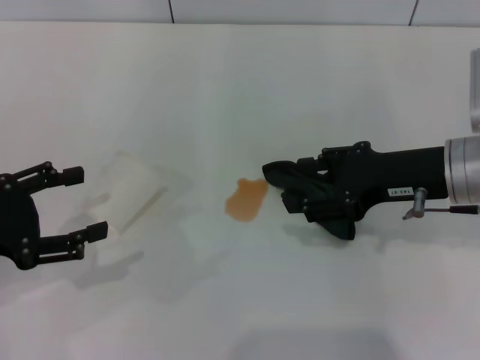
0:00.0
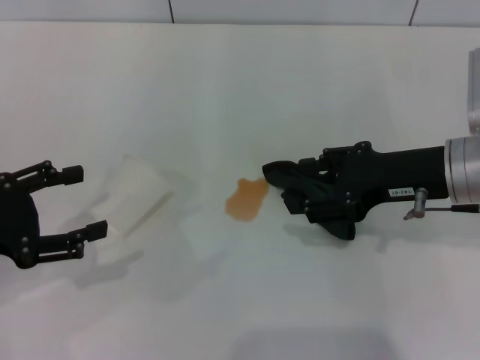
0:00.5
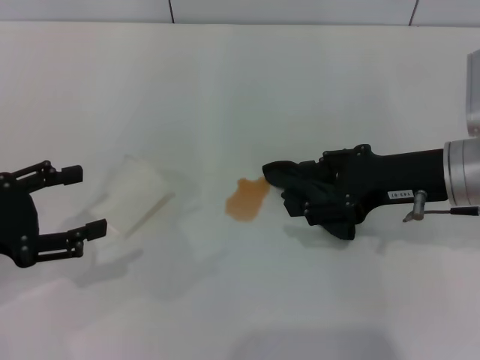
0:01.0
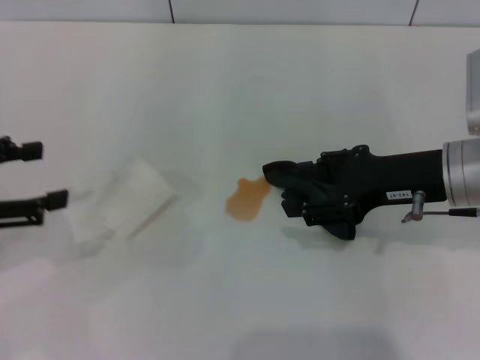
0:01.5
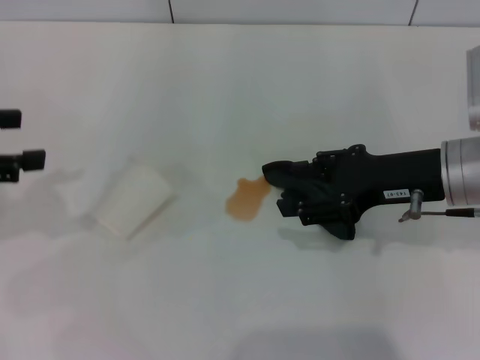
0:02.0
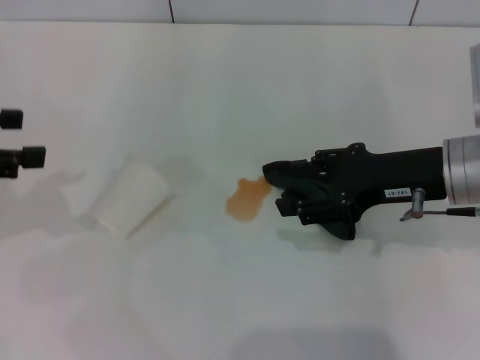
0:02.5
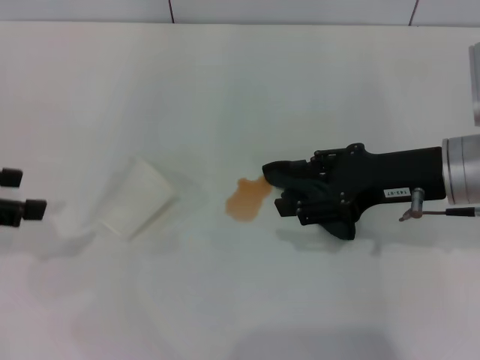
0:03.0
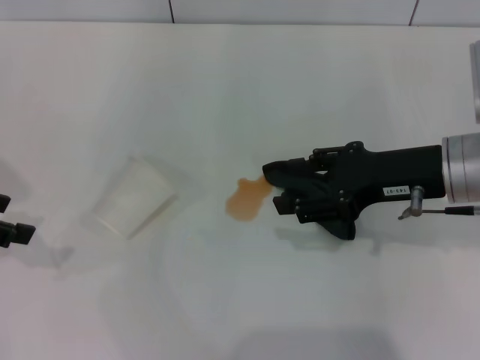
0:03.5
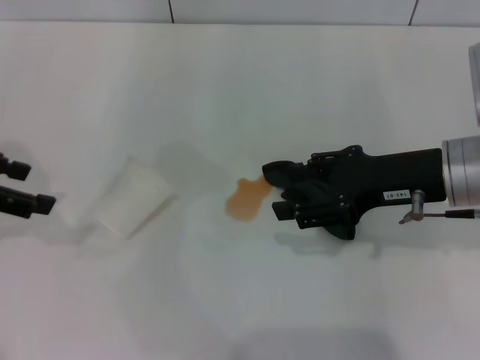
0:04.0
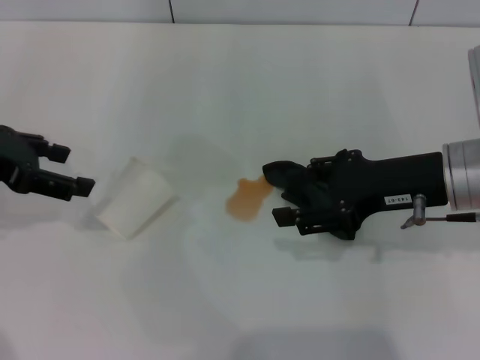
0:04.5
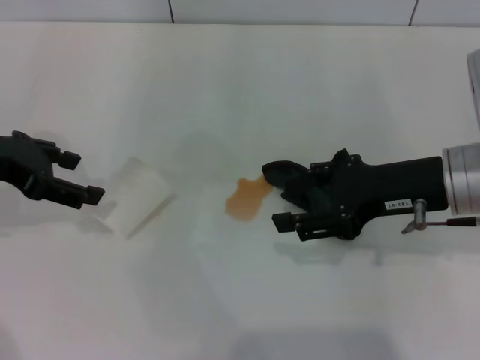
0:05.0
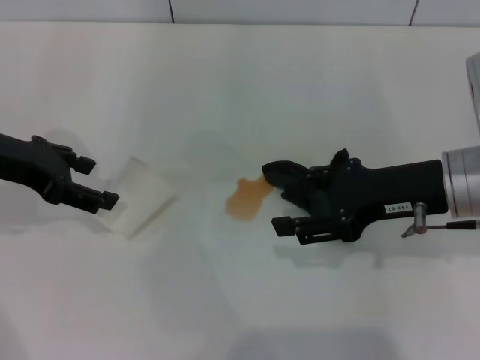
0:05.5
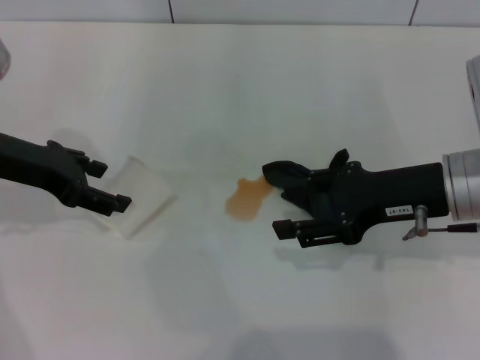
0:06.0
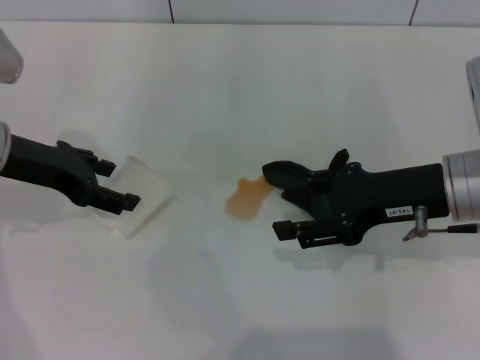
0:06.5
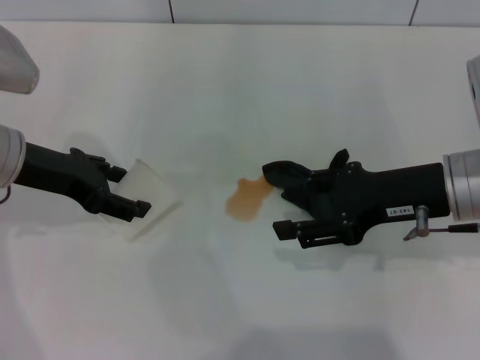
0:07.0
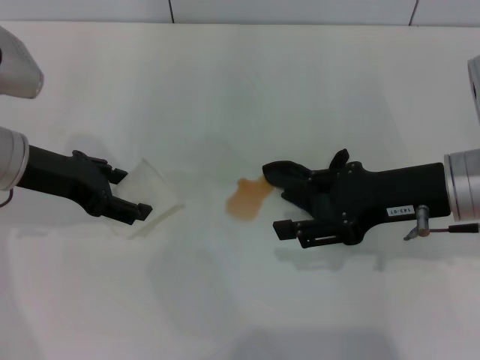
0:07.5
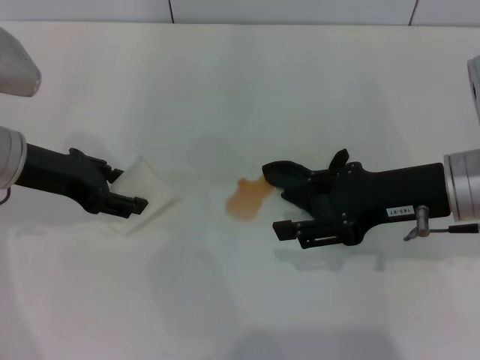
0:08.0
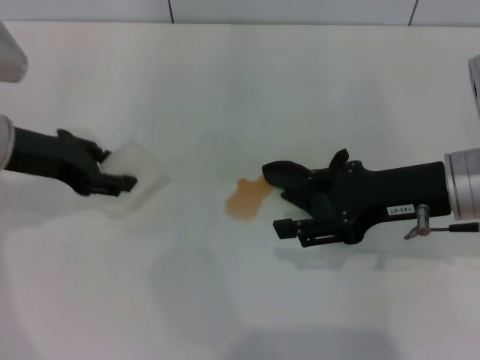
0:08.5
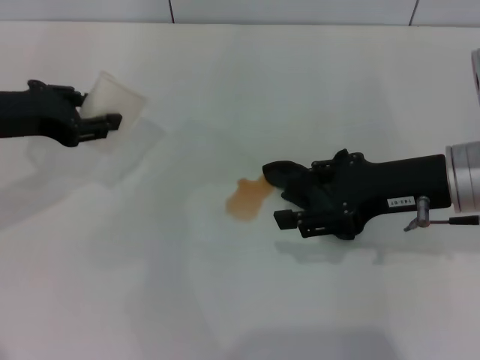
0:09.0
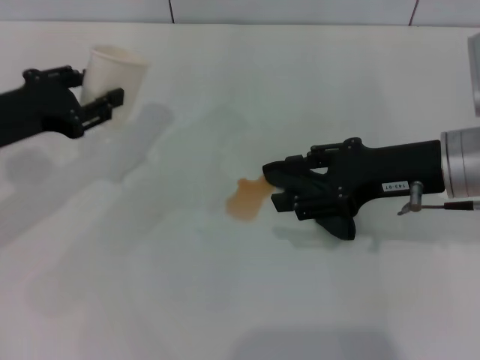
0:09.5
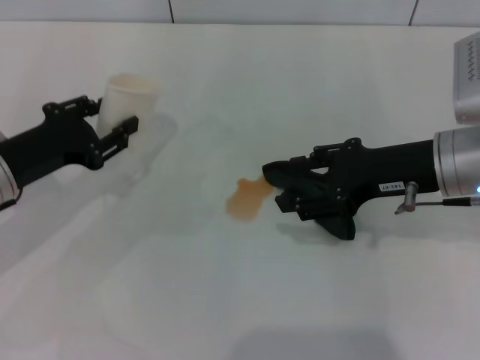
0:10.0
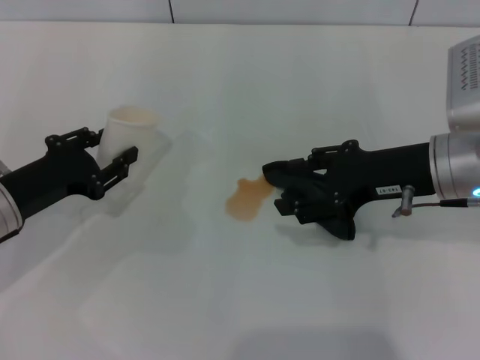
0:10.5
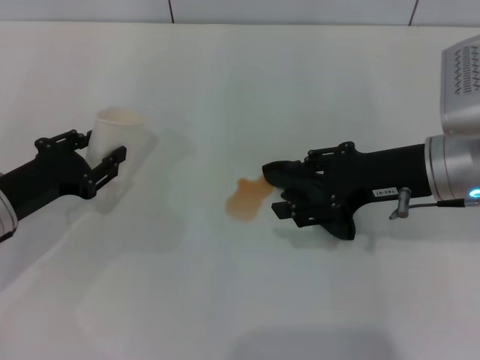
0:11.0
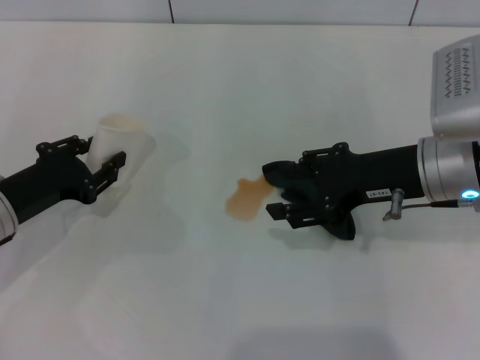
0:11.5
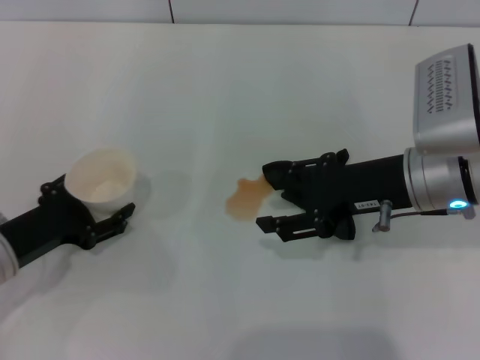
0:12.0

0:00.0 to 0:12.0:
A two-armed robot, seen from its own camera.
Step, 0:00.0 to 0:08.0: Grasp the paper cup with the left gripper.
0:00.0 to 0:02.0: The left gripper goes roughly 10 cm upward.
0:04.0 to 0:06.0: The left gripper travels to the right by some 5 cm.
0:06.0 to 0:08.0: There are only small adjustments of the grippers.
0:08.0 to 0:10.0: The left gripper shifts roughly 5 cm downward, and closes its fingers.
0:10.0 to 0:12.0: The left gripper heads backward, covering roughly 5 cm.

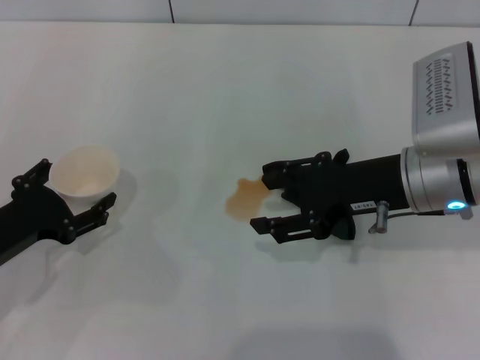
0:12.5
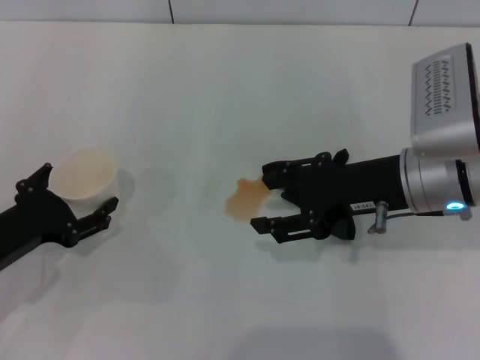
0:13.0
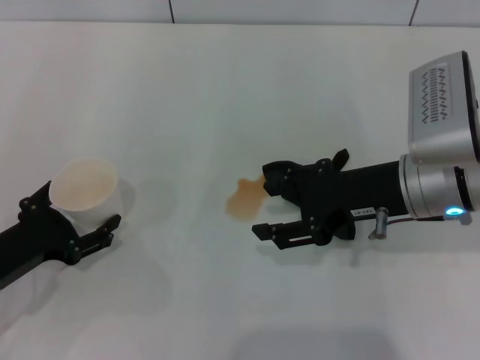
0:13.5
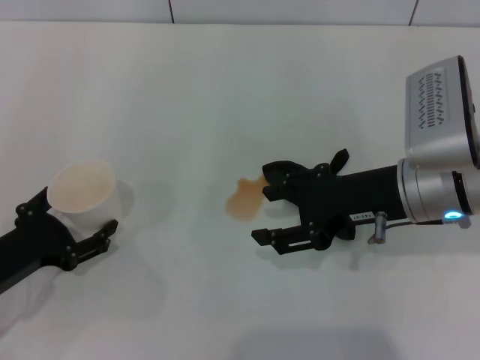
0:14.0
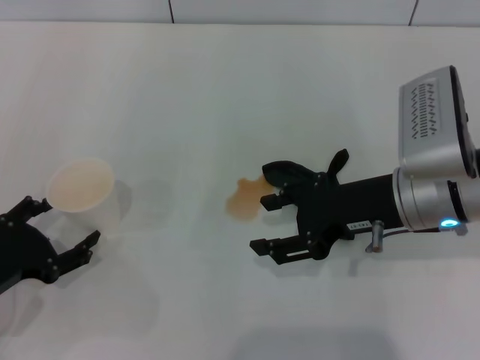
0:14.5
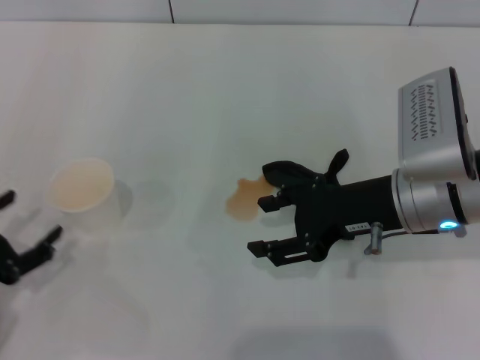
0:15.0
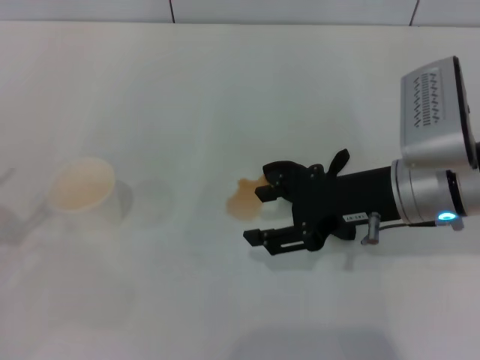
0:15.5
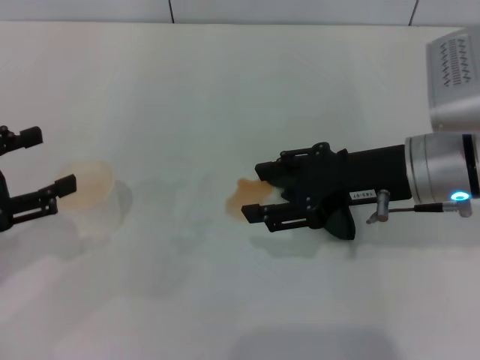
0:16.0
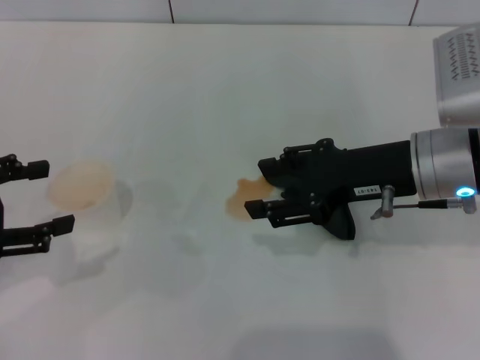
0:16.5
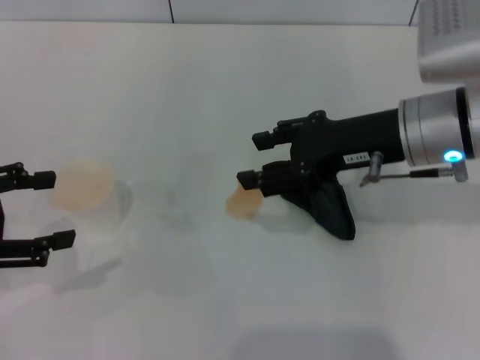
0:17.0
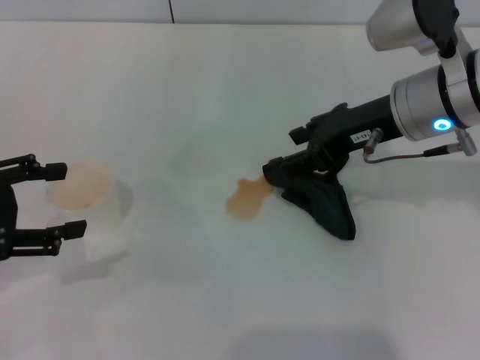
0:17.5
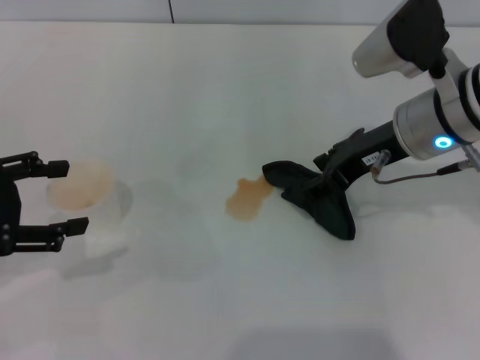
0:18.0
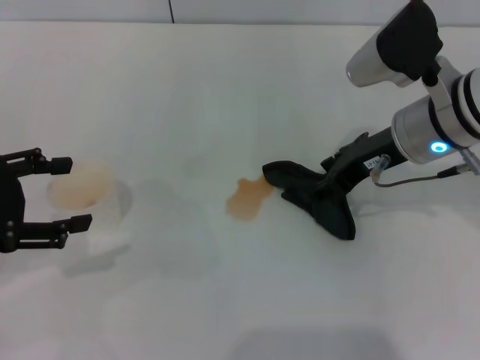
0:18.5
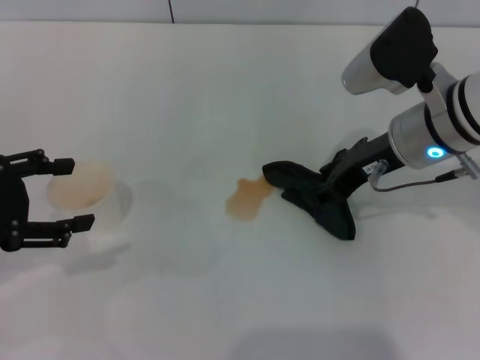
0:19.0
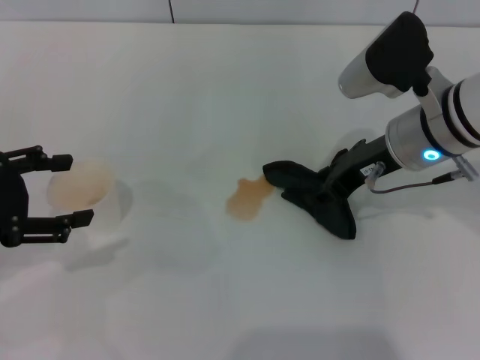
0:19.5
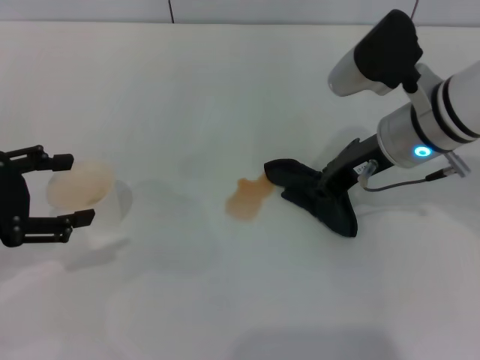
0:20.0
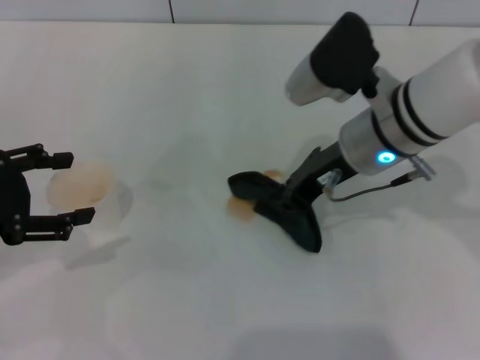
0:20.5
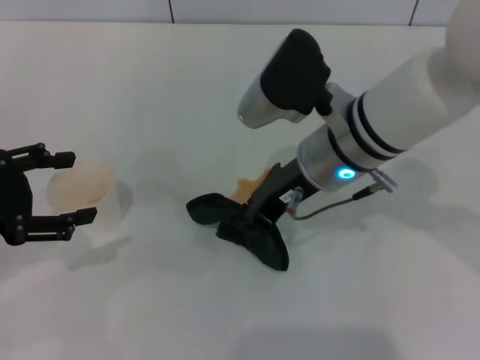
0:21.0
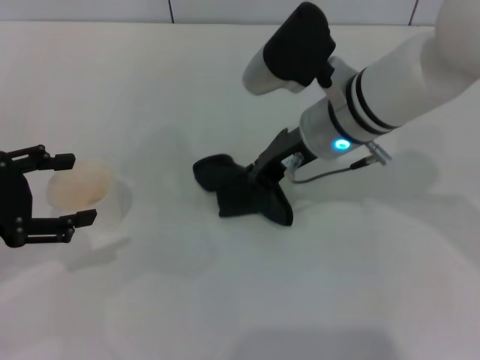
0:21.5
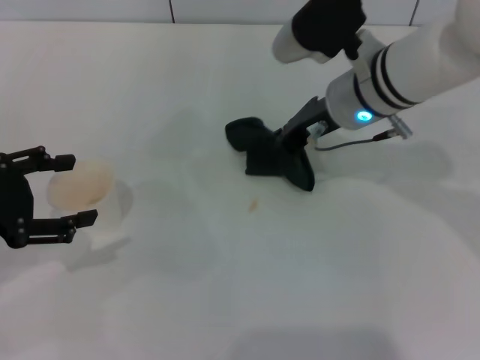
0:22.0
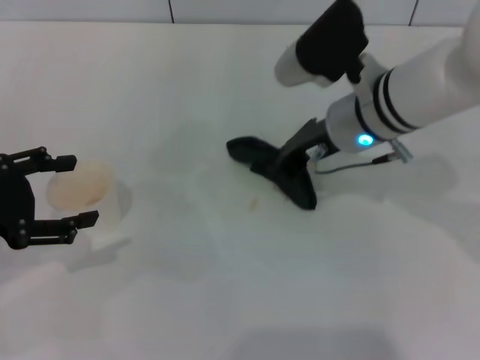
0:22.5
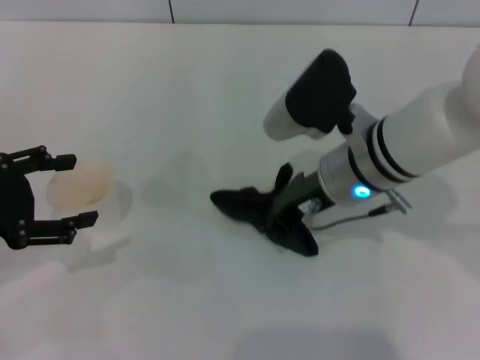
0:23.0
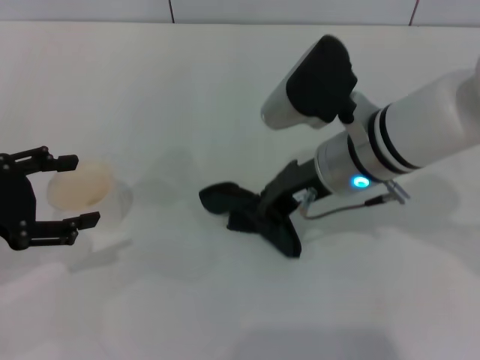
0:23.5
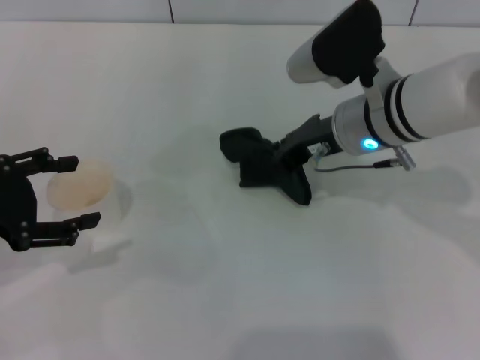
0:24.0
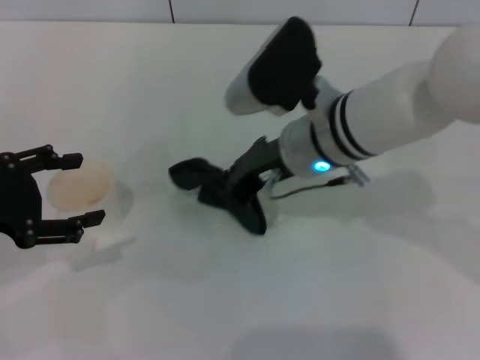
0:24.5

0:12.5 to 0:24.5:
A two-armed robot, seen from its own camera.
Step, 0:12.5 to 0:14.5: Stand the paper cup upright with the left gripper.
Step, 0:15.0 to 0:20.0: Grasp the rag with the right gripper.
0:12.5 to 0:14.5: The grippers move only a little.
0:14.5 to 0:16.5: The left gripper travels upward by roughly 10 cm.
0:16.5 to 0:18.5: The right gripper goes roughly 5 cm forward.
0:18.5 to 0:20.5: The right gripper closes up.
0:20.5 to 0:22.5: There are only small adjustments of the grippers.
0:22.5 to 0:24.5: The right gripper shifts by roughly 5 cm.

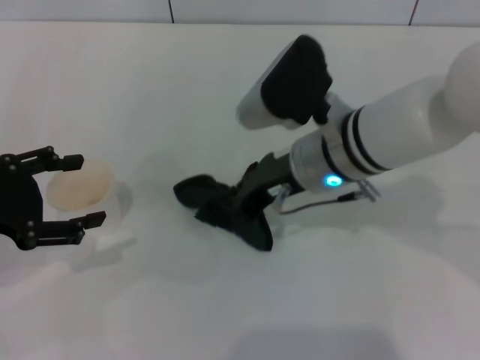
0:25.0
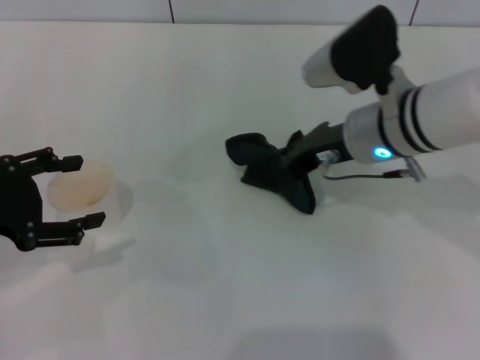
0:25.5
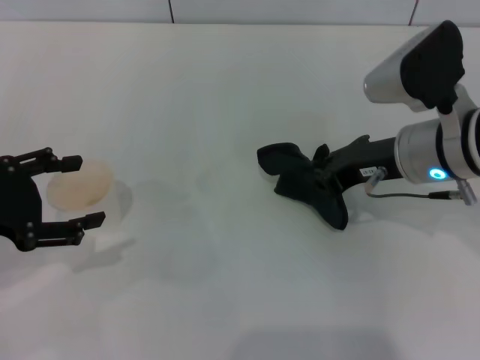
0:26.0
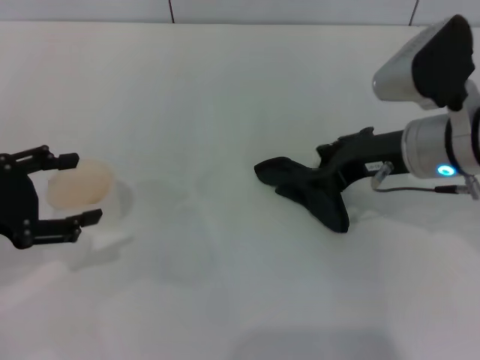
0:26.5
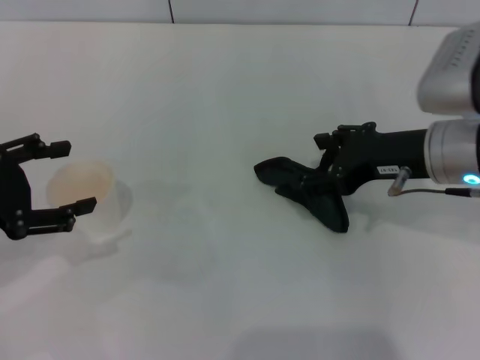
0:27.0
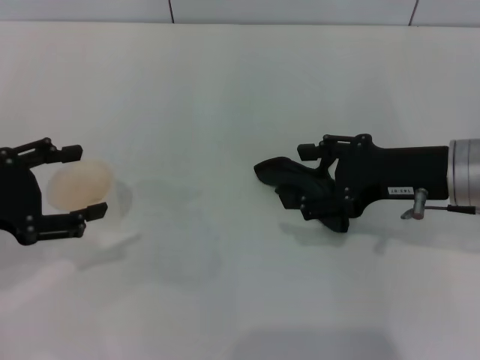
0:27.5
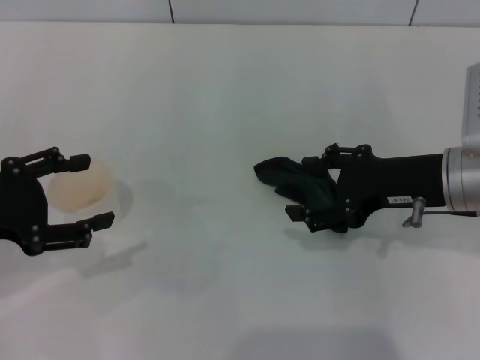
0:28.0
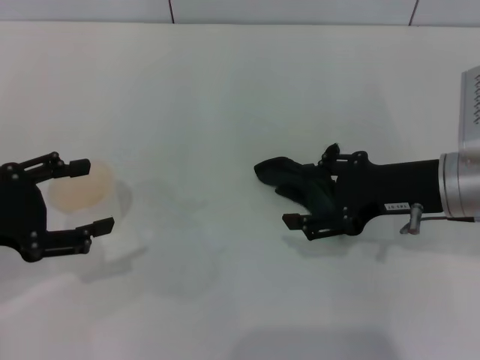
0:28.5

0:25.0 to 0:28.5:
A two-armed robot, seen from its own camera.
Step, 0:26.5 to 0:27.5: Place the rag on the table with the right gripper.
0:25.0 to 0:27.0: The right gripper heads to the right, covering some 10 cm, and opens its fingers.
0:27.0 to 0:28.5: The grippers stay close to where they were, moving slightly.
